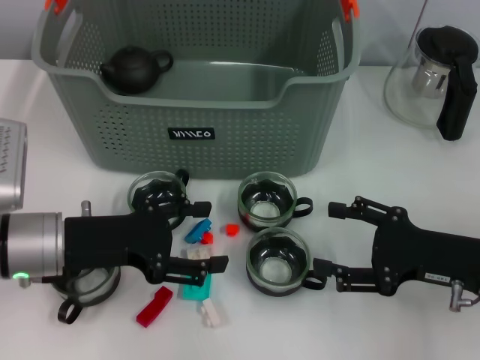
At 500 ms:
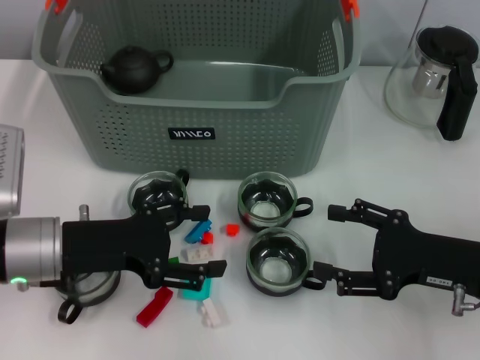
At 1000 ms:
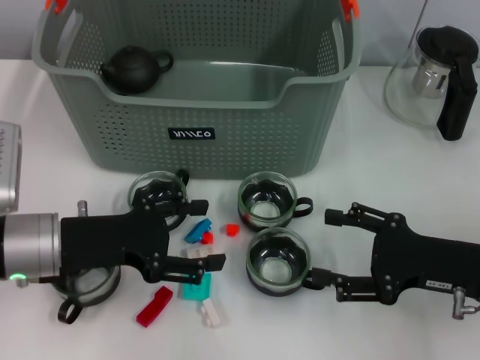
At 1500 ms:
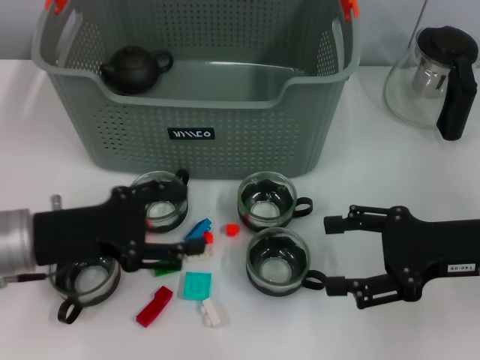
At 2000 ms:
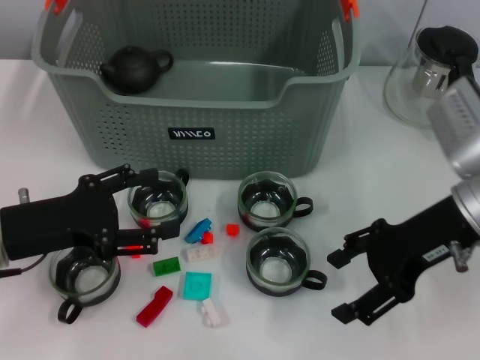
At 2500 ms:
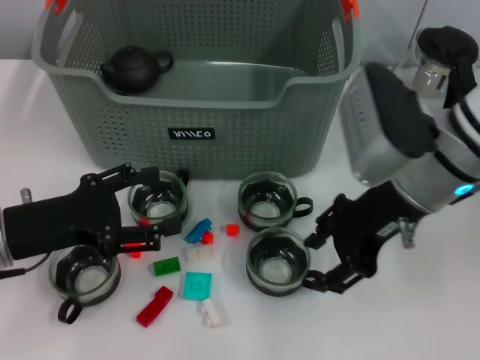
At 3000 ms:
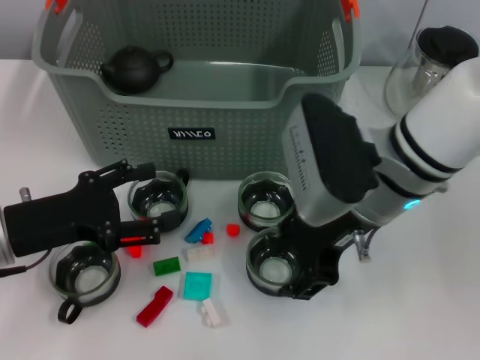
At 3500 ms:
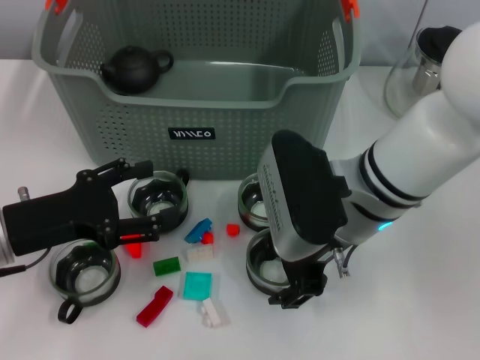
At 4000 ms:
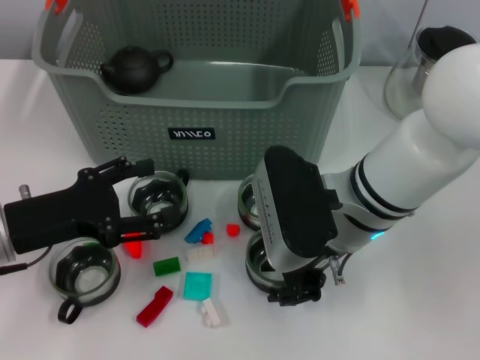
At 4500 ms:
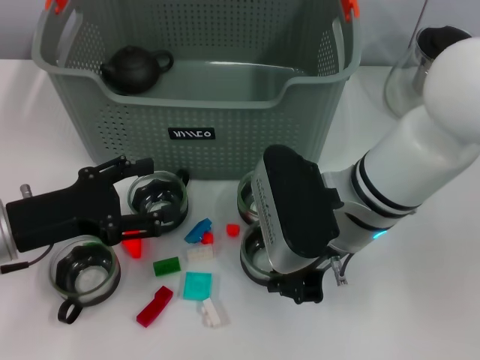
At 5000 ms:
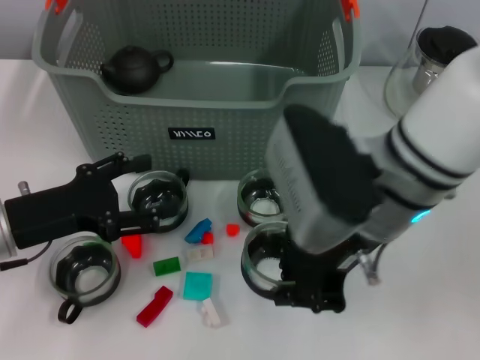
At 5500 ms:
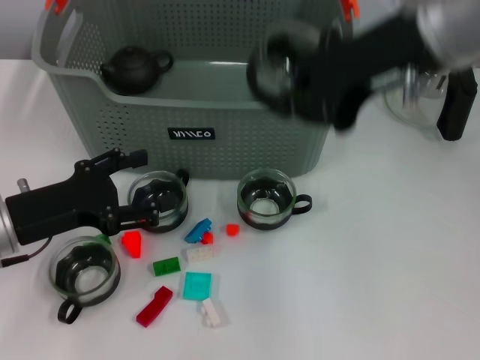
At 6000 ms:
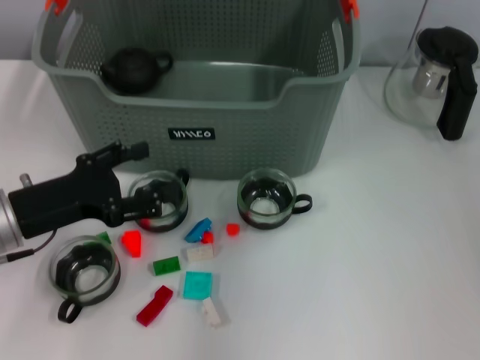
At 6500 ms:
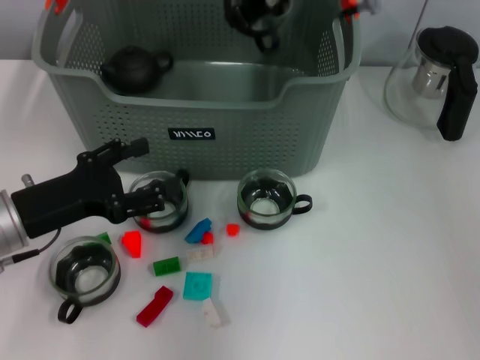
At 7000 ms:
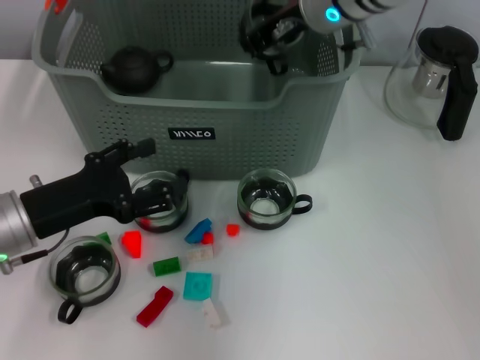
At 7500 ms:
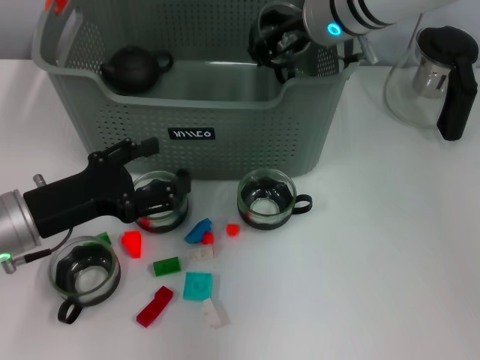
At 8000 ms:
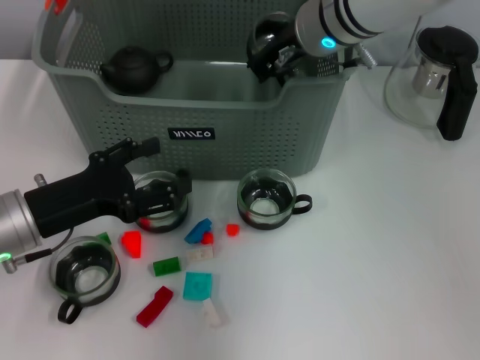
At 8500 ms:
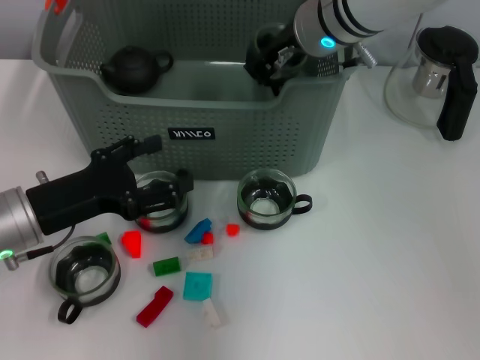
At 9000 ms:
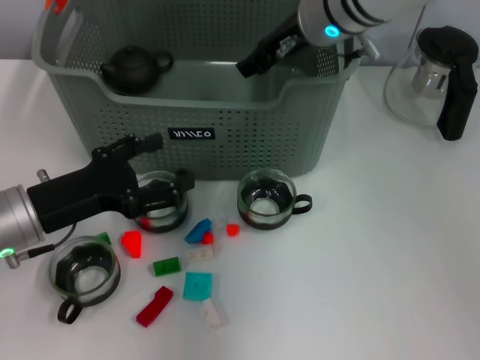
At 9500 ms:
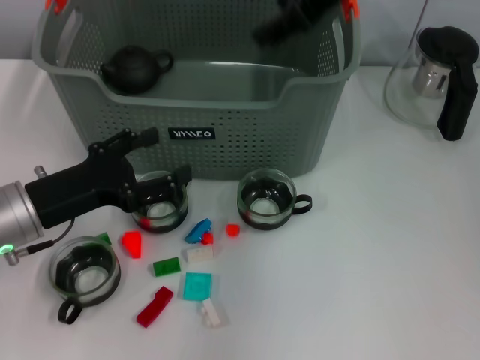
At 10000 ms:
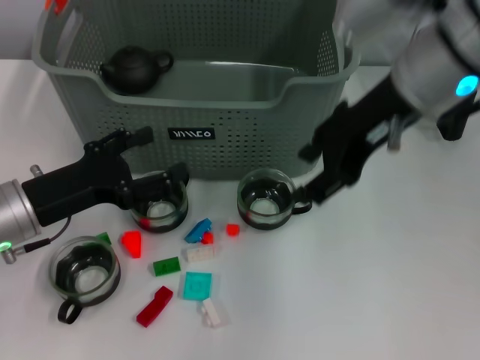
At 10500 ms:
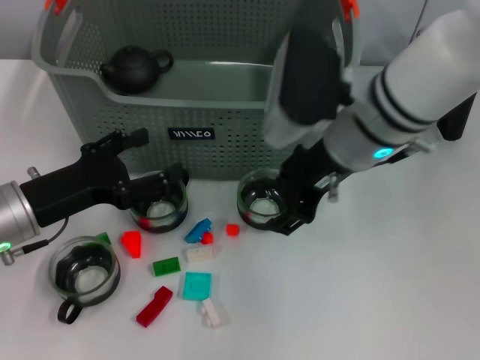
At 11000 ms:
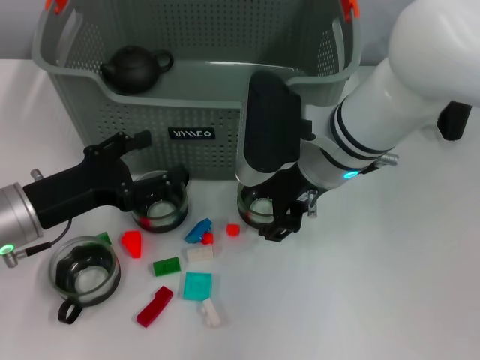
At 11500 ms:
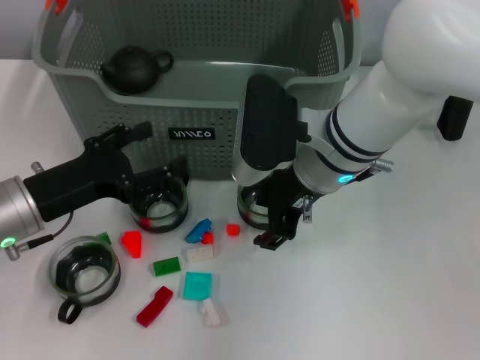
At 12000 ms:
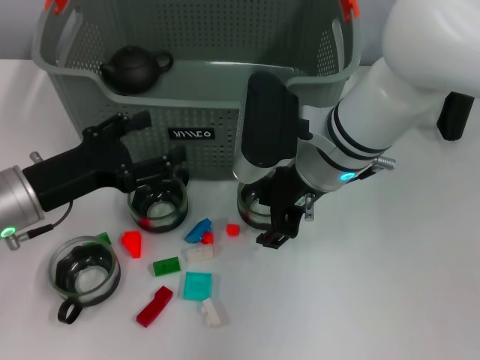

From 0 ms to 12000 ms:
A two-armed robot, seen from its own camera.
Task of the whole recording: pick up the teacup on the table and place it into the storage bin, pick up the block on the table and place it into the storage bin.
Step, from 0 ms to 4000 ms: Grasp the cup with right gripper.
Step, from 4500 ms to 8500 ms: Place the cup in the storage box with right gripper.
From 0 ms to 2000 ms: The right gripper heads upward and forward, covering some 10 cm.
From 2000 ms to 4000 ms: The right gripper heads to the left, covering some 15 cm, and closes up.
From 4000 ms to 6000 ms: The right gripper heads upward and forward, covering approximately 25 cm, and closes its fingers.
From 6000 ms to 8000 ms: The right gripper heads downward, covering some 10 cm.
From 8000 ms to 10000 ms: The right gripper shifts approximately 15 cm backward, to the right and upward, and opens its fingers.
From 10000 ms to 12000 ms: The right gripper is displaced downward and to the left by approximately 15 cm.

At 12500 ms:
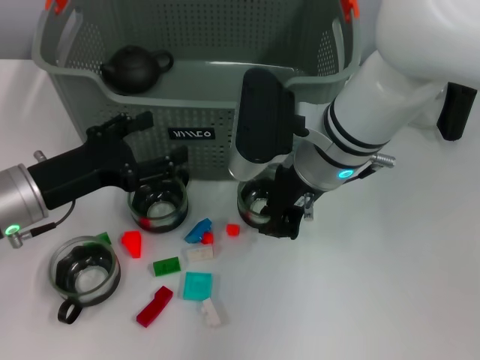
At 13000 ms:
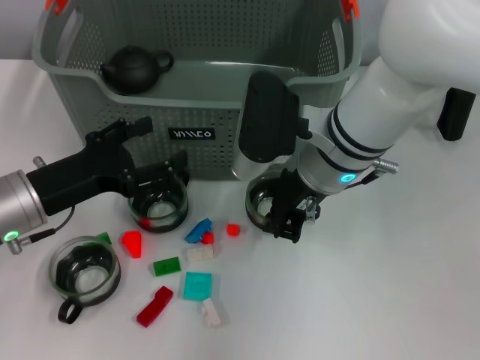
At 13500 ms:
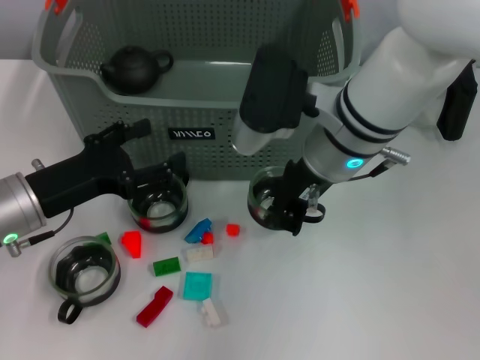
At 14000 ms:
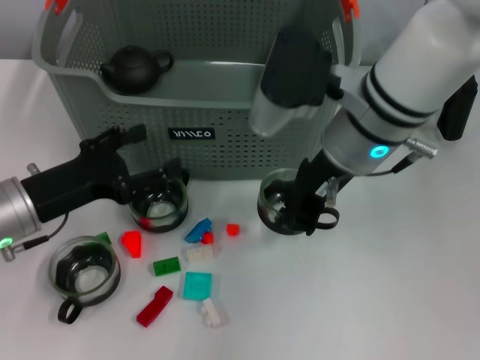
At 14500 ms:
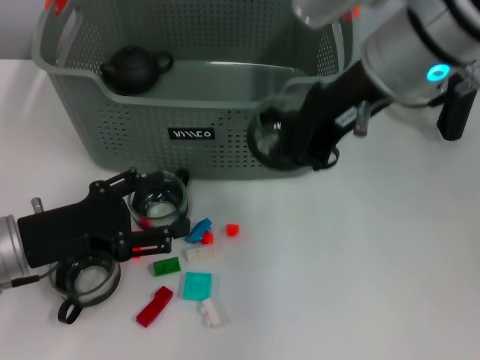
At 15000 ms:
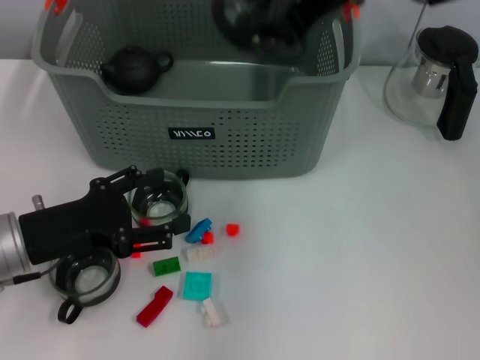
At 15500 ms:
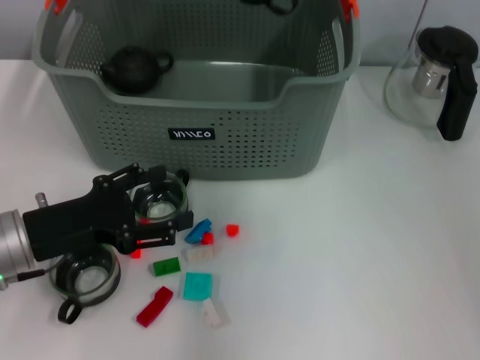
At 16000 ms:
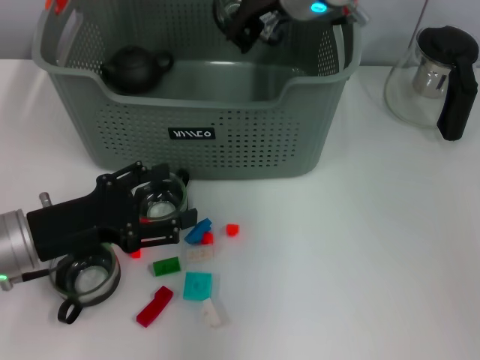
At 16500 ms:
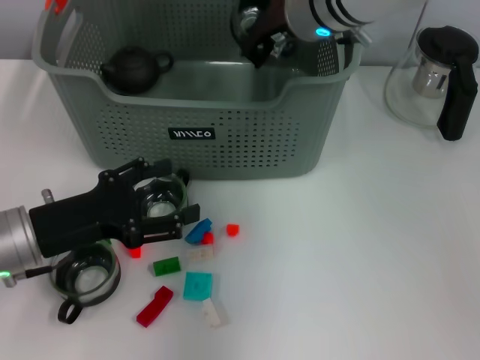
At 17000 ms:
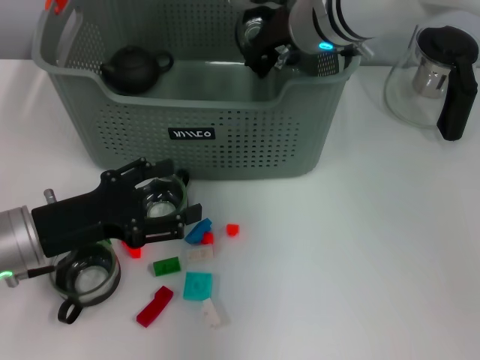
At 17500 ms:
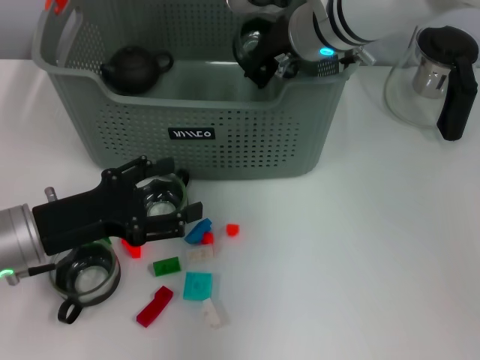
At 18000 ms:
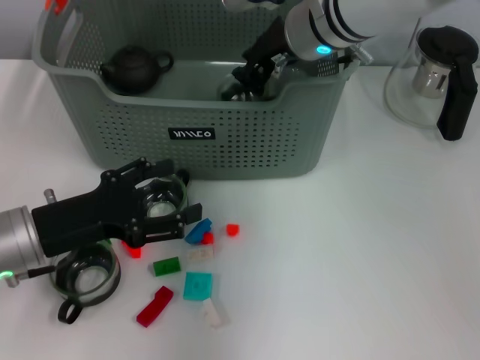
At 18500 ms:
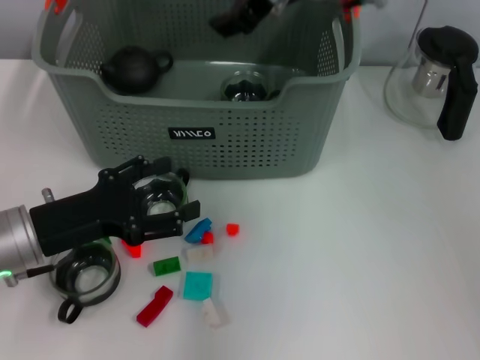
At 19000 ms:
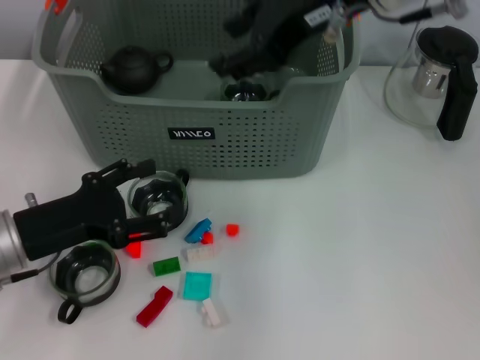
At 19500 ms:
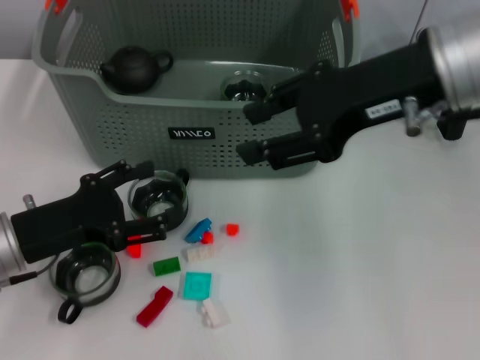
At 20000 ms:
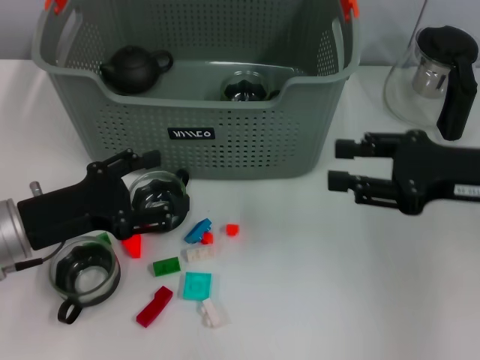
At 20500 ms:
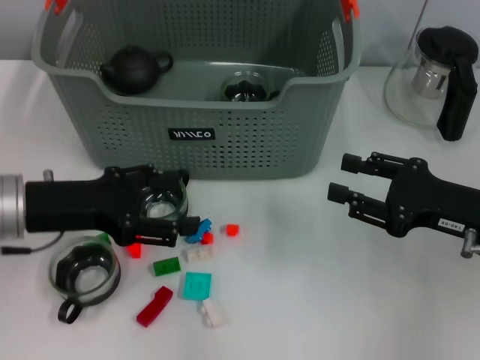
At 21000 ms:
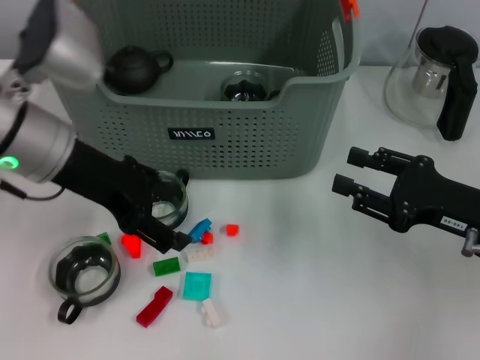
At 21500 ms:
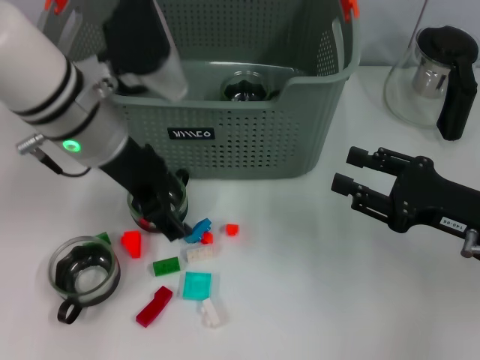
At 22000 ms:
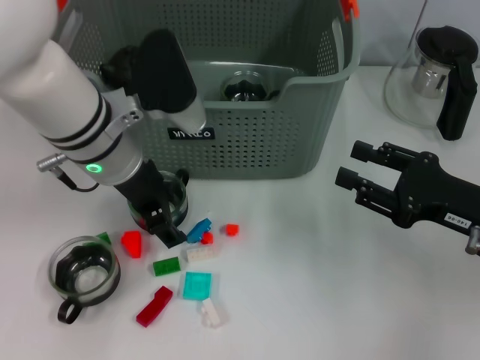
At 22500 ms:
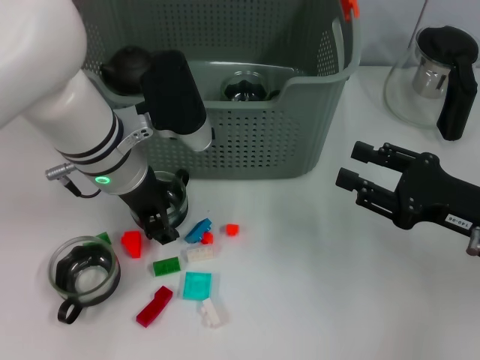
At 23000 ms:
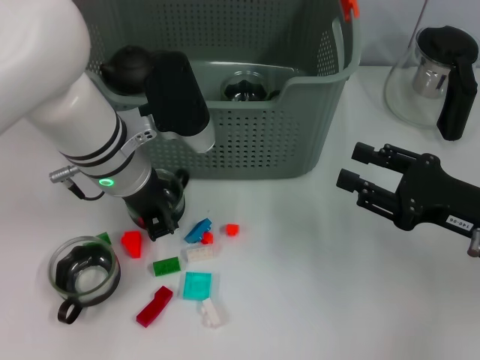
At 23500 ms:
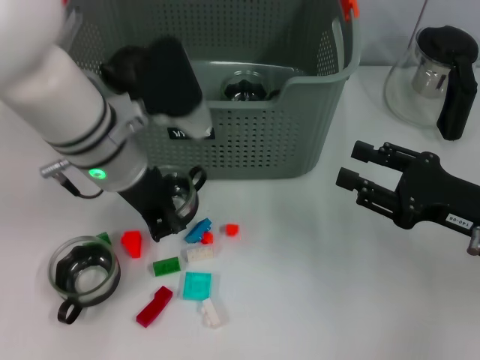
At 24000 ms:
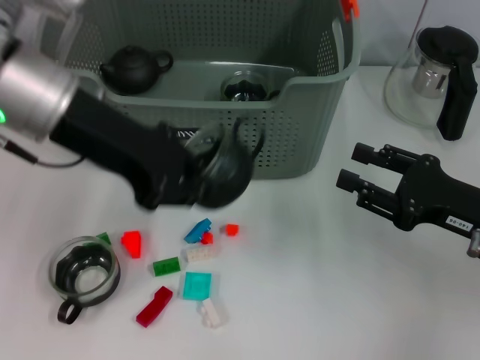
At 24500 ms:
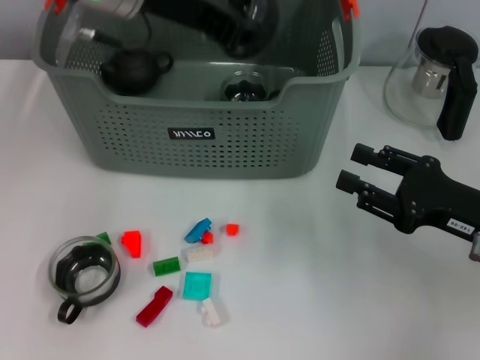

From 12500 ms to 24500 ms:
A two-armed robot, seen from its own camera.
Task of the whole recording: pick up the teacup on the table and place it into the storage bin, pick up the block on the table and place it into the storage bin.
Step, from 13000 ms to 17500 ms: Place the cup in the storage box with right gripper.
Step, from 18500 ms to 23000 ms: Grasp the cup with left gripper.
From 12500 ms to 14500 ms: The right gripper shifts approximately 15 cm upward, and closes.
From 14500 ms to 16500 ms: The right gripper goes roughly 15 cm forward and downward.
From 16500 ms to 18500 ms: The right gripper moves upward, some 5 cm, and opens.
From 18500 ms to 20500 ms: The left gripper shifts by approximately 5 cm; the right gripper moves to the right, downward and backward, about 30 cm.
From 20500 ms to 22500 ms: The left gripper travels to the right and forward by approximately 15 cm.
From 22500 ms to 24500 ms: The left gripper heads upward, covering approximately 15 cm, and closes up.

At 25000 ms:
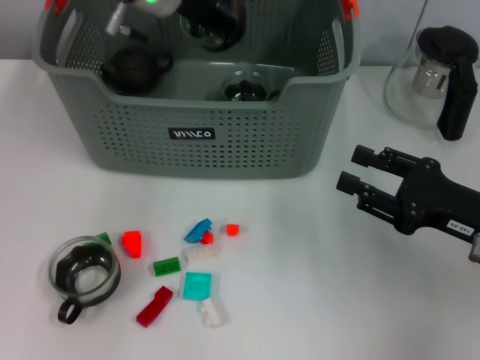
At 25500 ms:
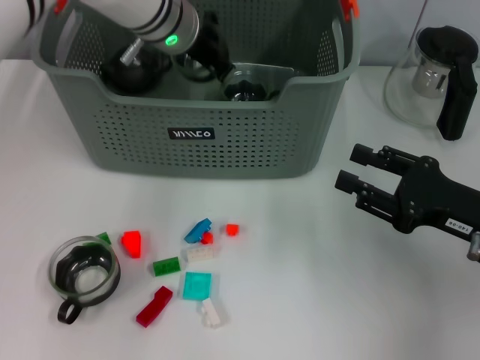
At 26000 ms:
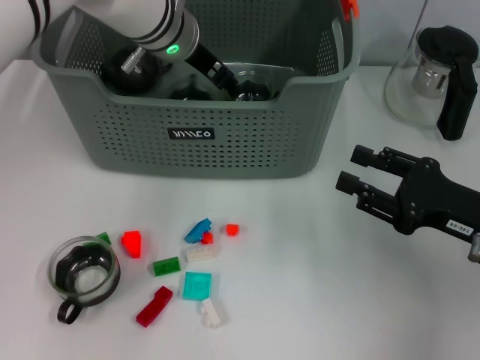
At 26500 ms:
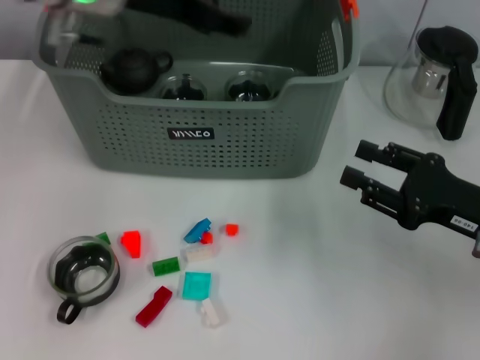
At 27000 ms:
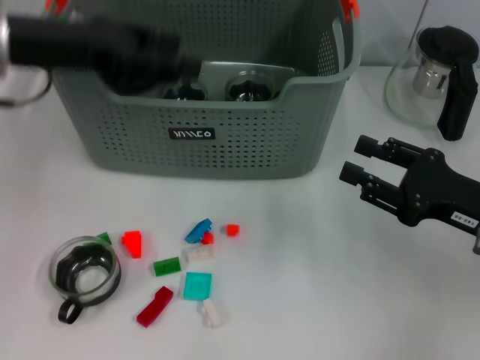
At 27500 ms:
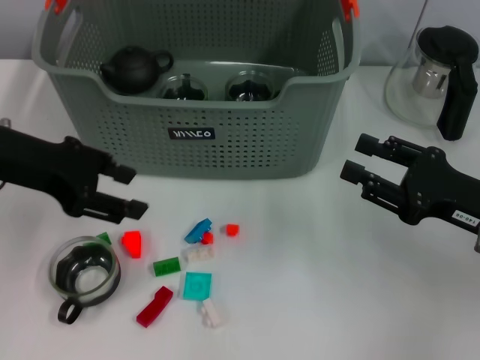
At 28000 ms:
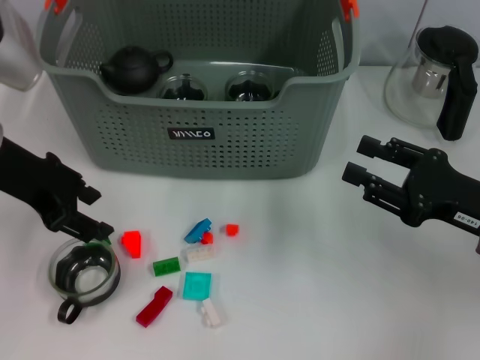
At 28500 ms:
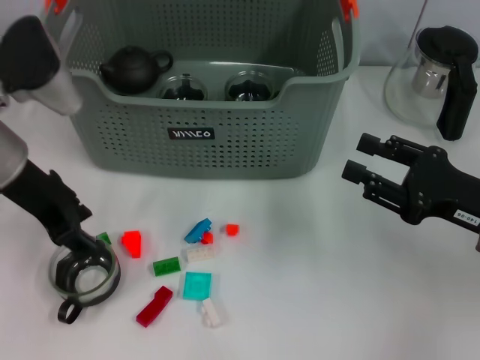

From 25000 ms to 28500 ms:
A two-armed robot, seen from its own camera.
Task of the whole recording: pick up the teacup on the table and place it into the storage bin, pick up the block on the table and place it into the storage bin.
From 25000 ms to 27000 ms: The left gripper moves to the left and backward, about 15 cm, and opens its fingers.
From 27000 ms to 28500 ms: The left gripper heads downward, covering approximately 5 cm.
